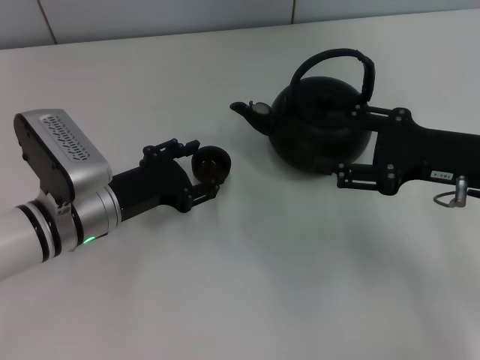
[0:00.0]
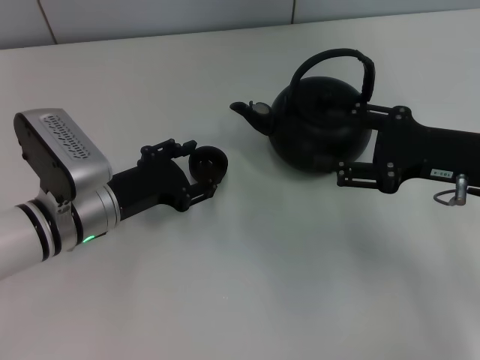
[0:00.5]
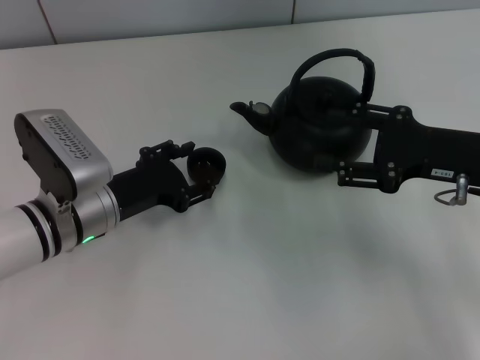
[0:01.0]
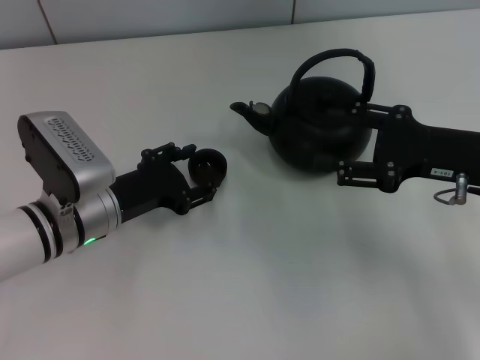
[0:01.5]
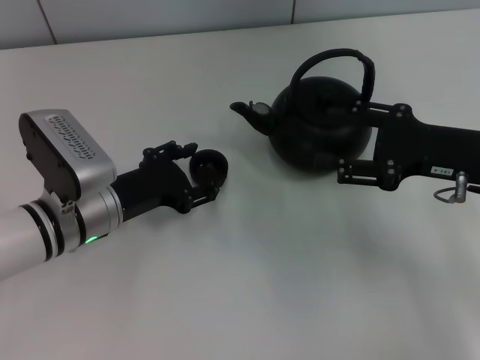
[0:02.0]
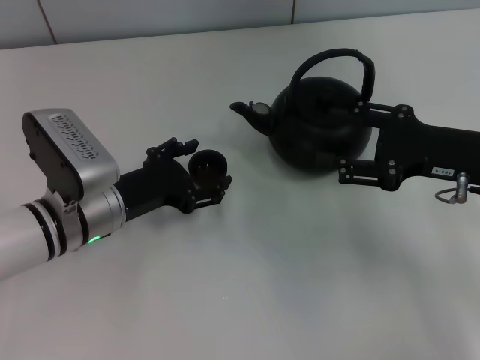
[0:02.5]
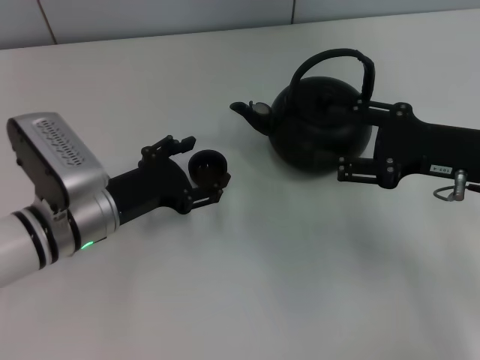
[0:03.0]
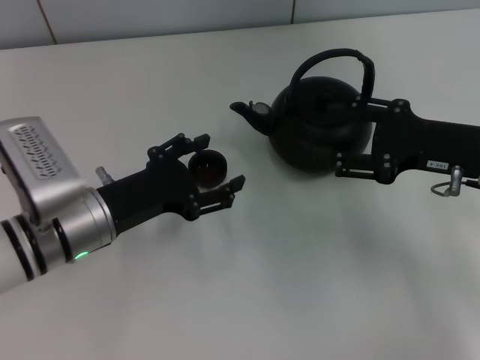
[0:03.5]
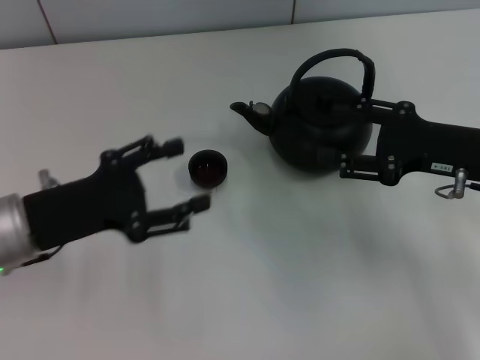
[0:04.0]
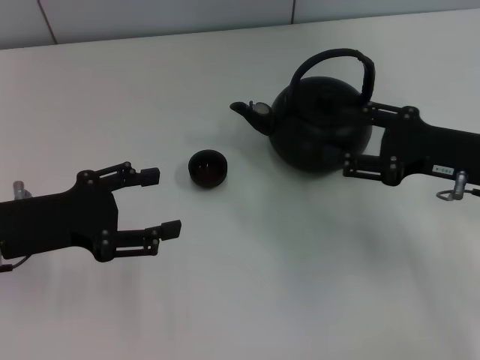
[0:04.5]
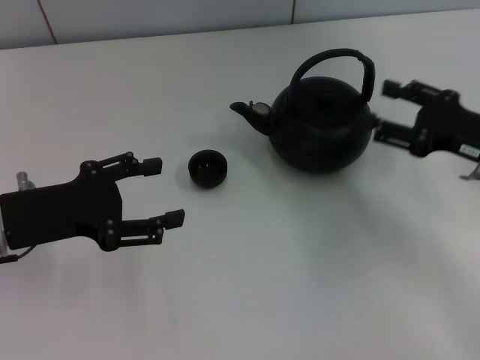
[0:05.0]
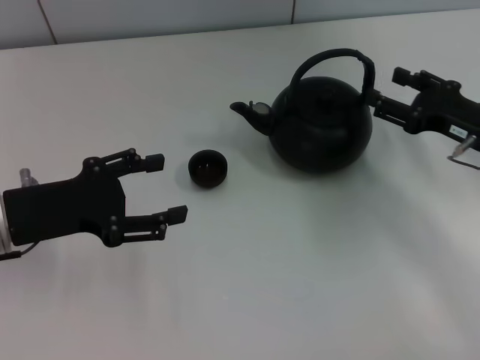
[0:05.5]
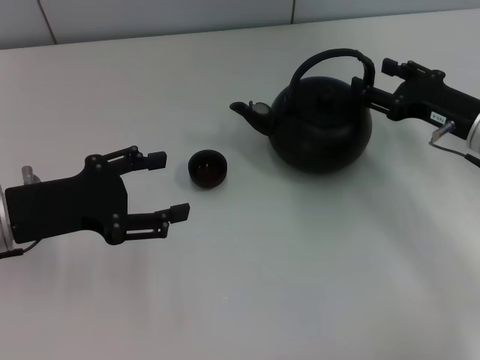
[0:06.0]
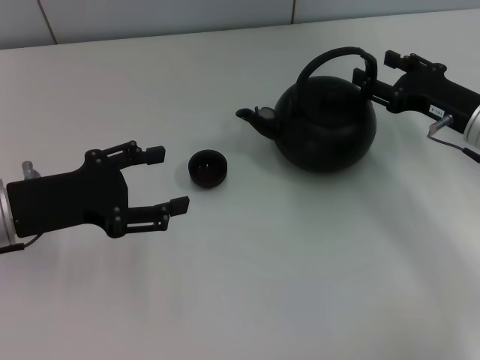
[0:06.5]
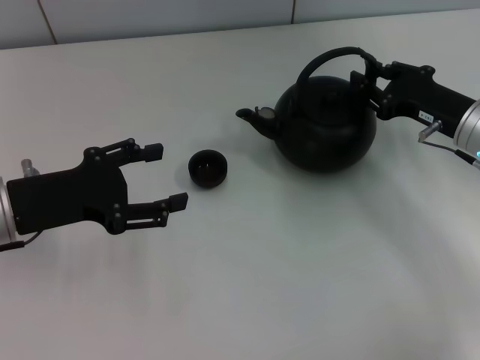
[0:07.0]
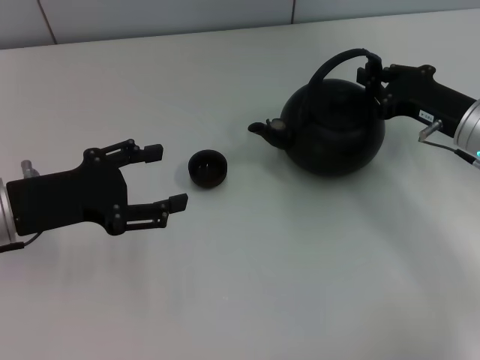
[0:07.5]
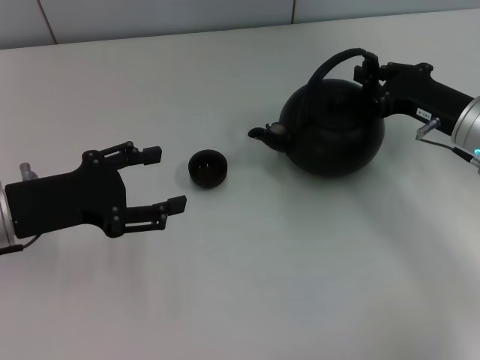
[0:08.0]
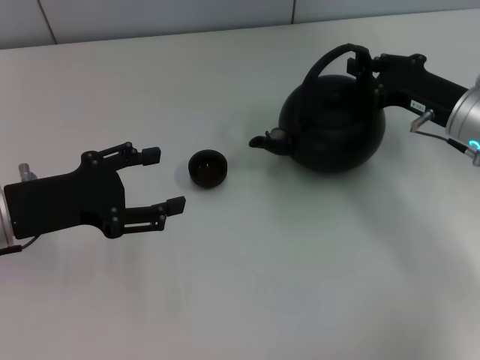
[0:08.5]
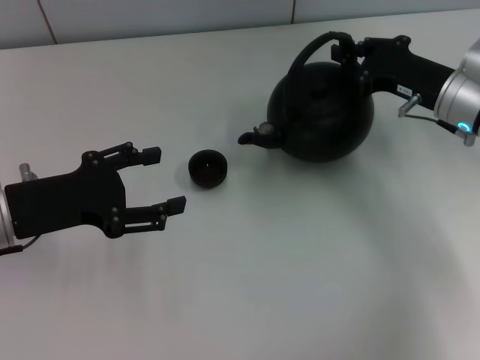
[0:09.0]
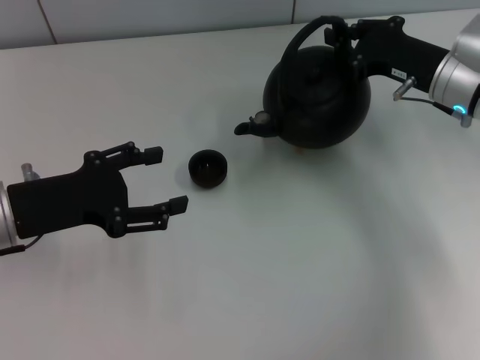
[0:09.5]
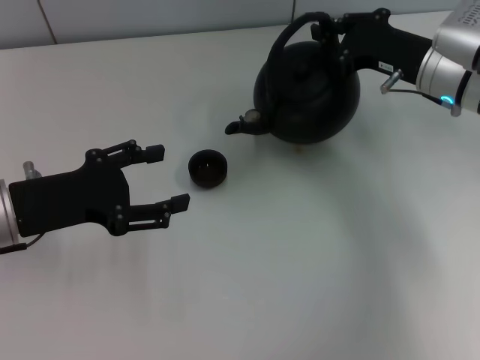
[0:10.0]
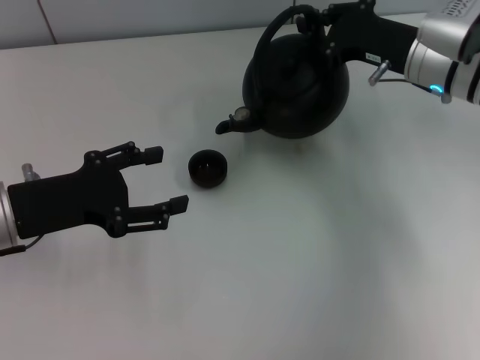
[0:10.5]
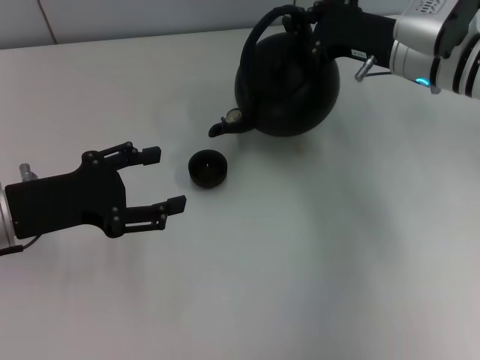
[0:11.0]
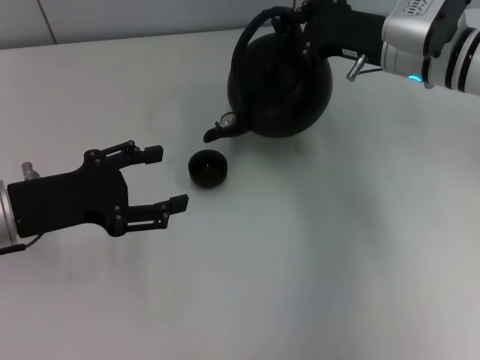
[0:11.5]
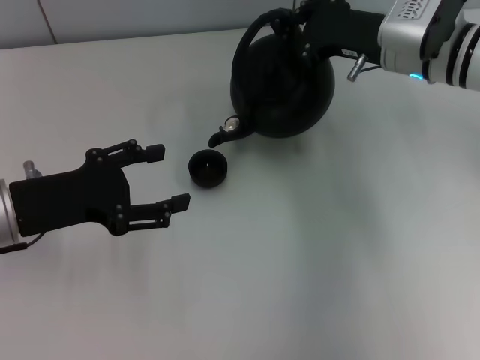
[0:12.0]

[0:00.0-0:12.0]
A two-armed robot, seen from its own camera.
Task of the whole recording: Grasp the handle of the teapot with one hand and pour tea into the teacup.
Step, 0.0 to 3.0 s: Place the teacup in the center of view with the left gripper.
Step, 3.5 to 9.0 s: Pick up the teapot with the right gripper.
0.0 to 2.0 s: The left gripper opens.
2.0 to 4.0 s: The left gripper goes roughly 5 cm upward.
4.0 to 6.0 s: The right gripper shifts by some 5 cm.
6.0 to 8.0 s: The right gripper closes.
8.0 to 10.0 s: The right gripper moves about 5 cm.
10.0 to 12.0 s: There are only small adjustments of the grippers.

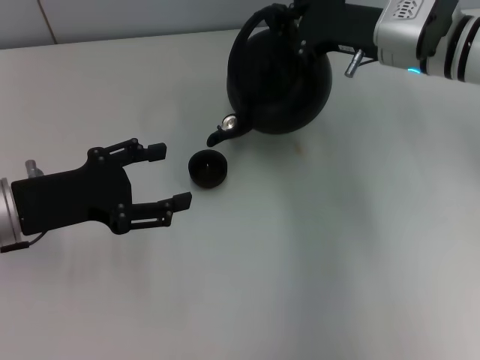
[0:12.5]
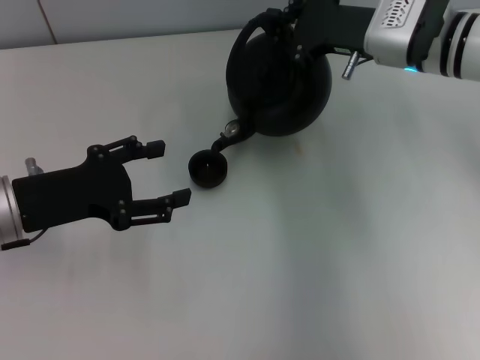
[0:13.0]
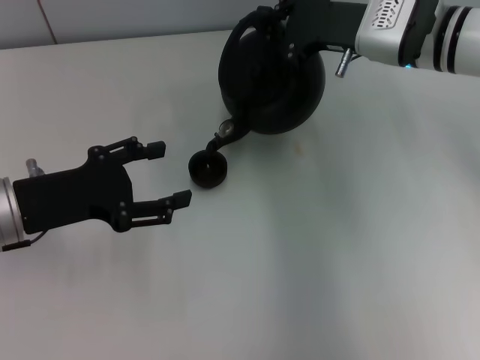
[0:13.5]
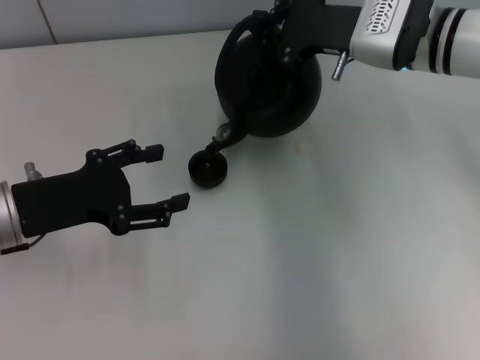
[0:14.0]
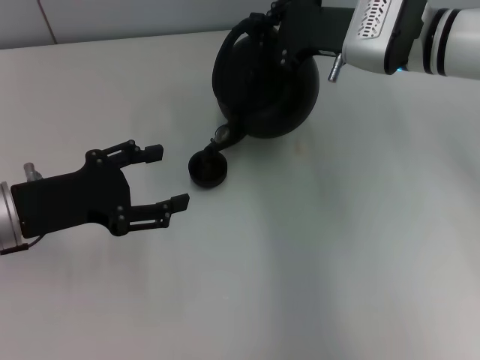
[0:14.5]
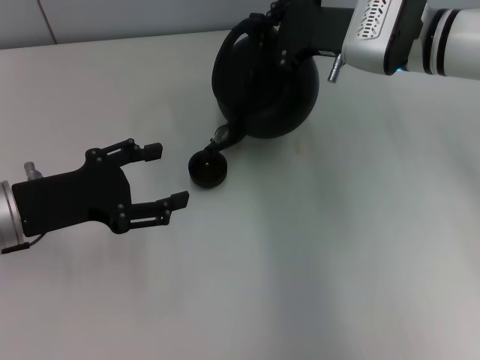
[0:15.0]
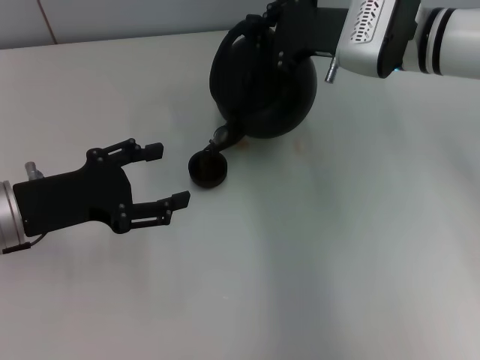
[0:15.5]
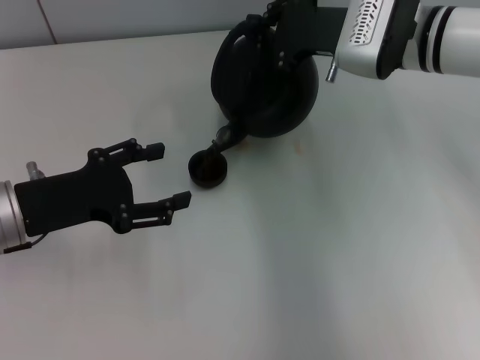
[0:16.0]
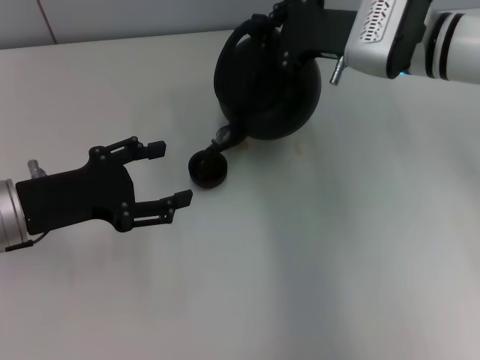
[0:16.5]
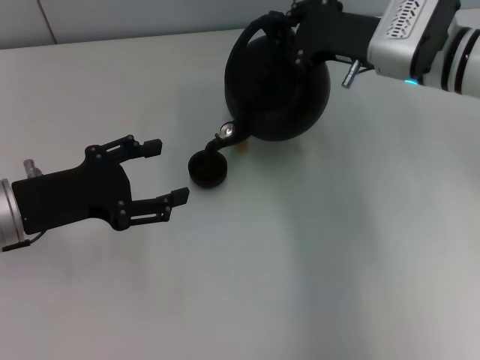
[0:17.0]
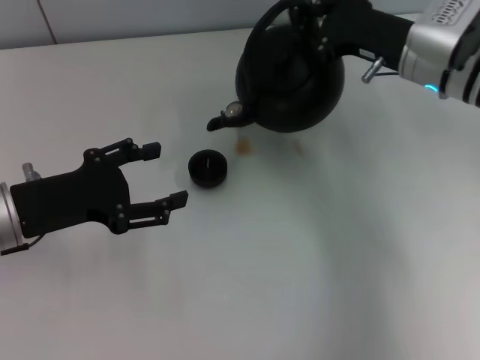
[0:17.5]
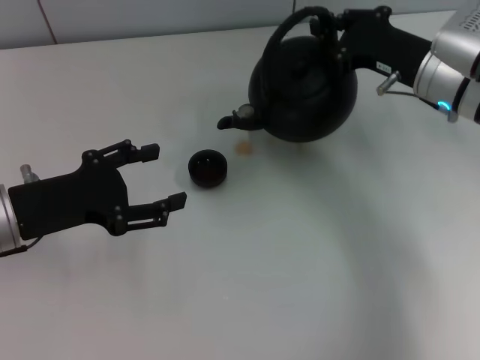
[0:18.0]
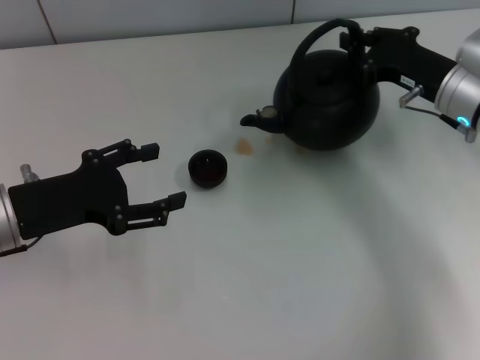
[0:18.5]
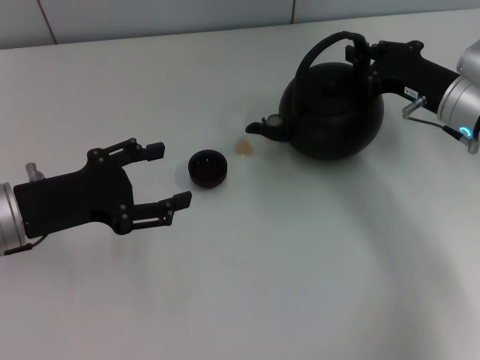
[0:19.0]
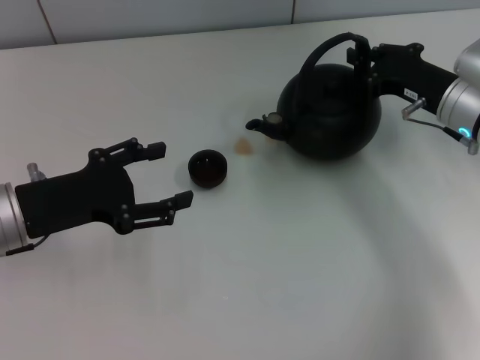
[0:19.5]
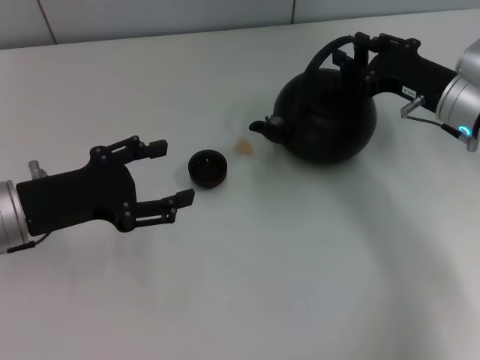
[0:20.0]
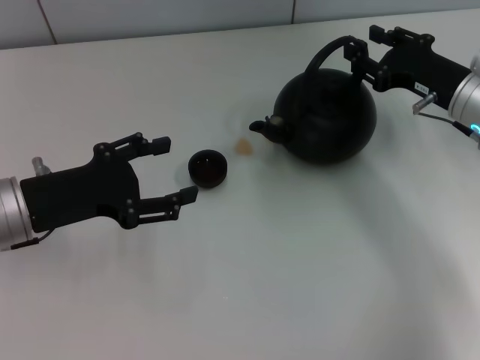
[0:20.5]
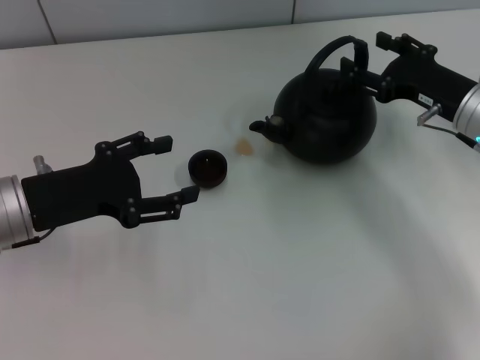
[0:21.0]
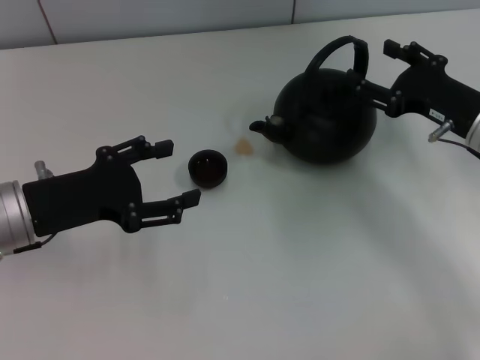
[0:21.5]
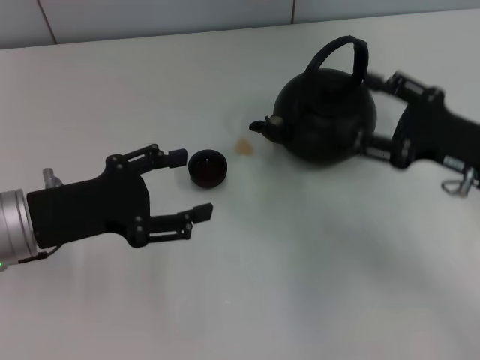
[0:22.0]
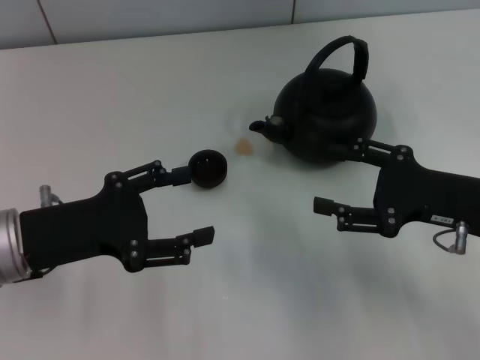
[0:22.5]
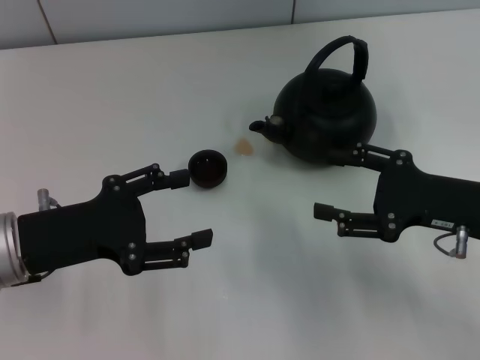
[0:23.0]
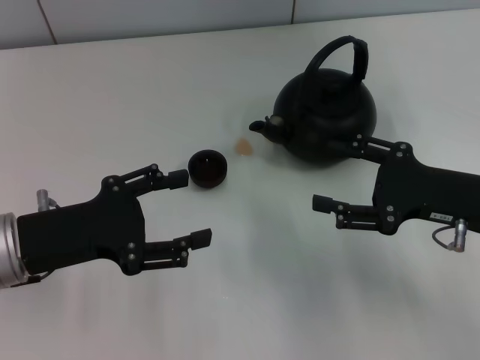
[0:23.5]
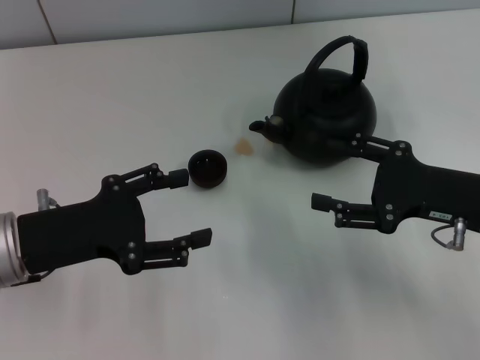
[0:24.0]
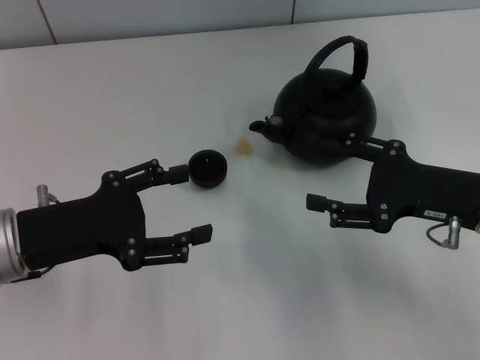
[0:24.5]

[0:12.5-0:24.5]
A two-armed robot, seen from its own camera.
Task of the whole recording: Grasp the handle of the teapot with one hand and pour tea into the teacup.
Step, 17.5 to 21.5 s: Put down the teapot with the right gripper.
12.5 to 14.5 s: The grippers move only a little.
14.5 to 16.5 s: Both grippers stay about where they are.
16.5 to 18.5 s: The right gripper goes some 10 cm to the right and downward.
18.5 to 20.5 s: The right gripper opens.
20.5 to 22.5 s: The right gripper moves backward, about 10 cm, and opens.
22.5 to 24.5 s: Both grippers stay put.

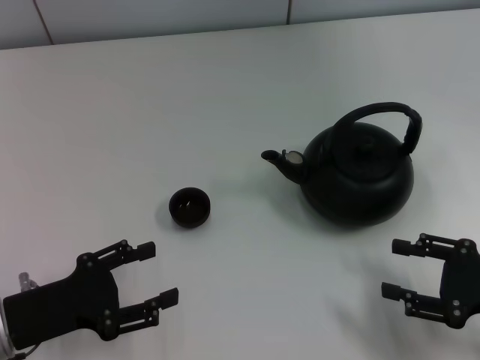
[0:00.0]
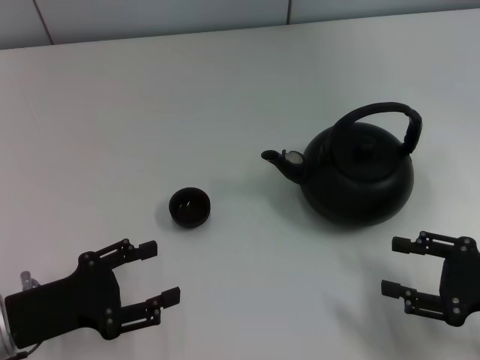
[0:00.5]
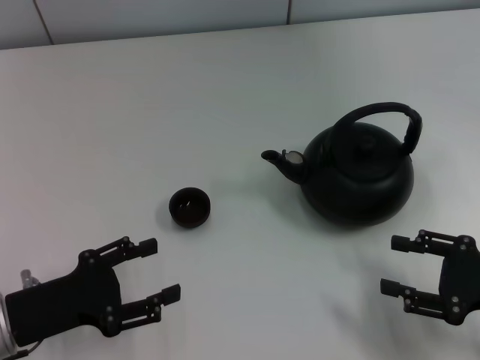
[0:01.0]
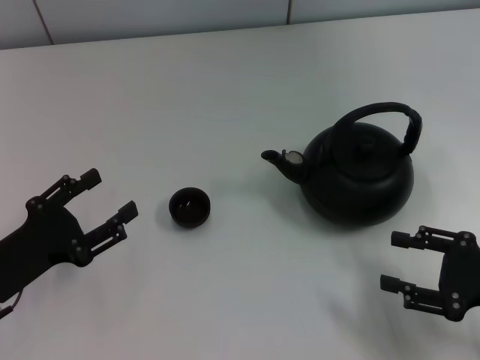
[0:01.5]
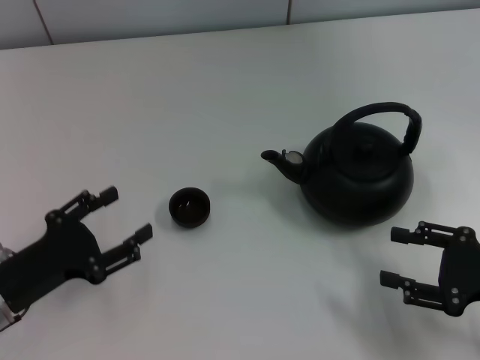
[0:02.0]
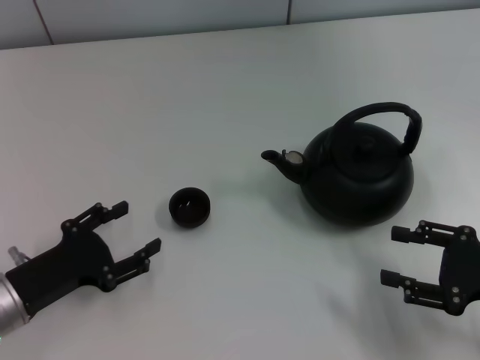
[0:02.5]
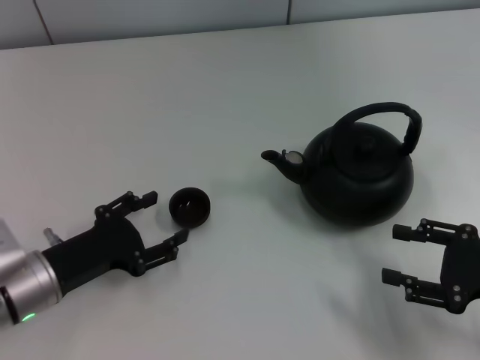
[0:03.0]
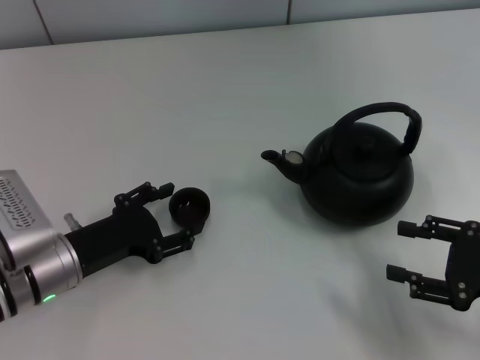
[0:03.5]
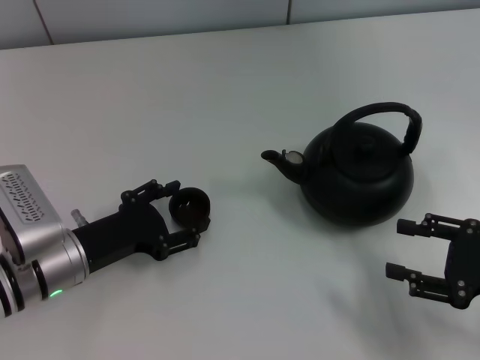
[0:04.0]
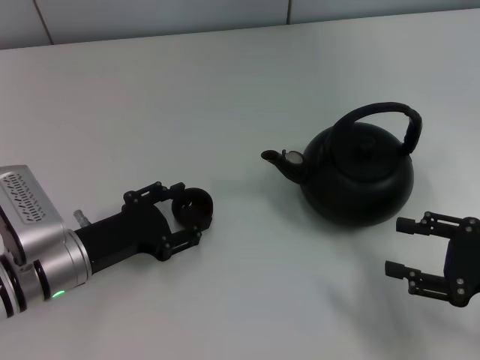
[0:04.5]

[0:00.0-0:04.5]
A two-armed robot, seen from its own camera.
Task of the whole recording: Grasp the handle of the teapot with one hand and pour tea into the teacup.
2.0 to 4.5 s: The left gripper moves to the right, approximately 5 cm, and closes up.
